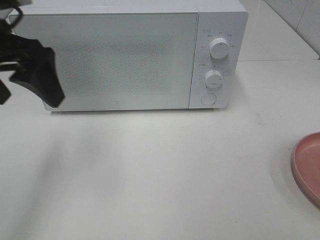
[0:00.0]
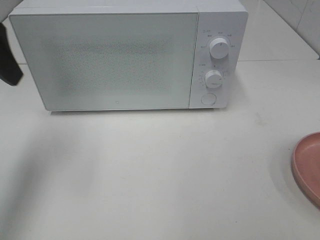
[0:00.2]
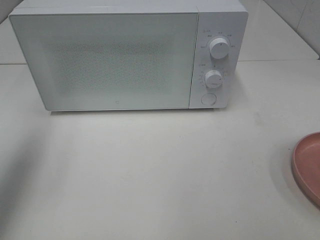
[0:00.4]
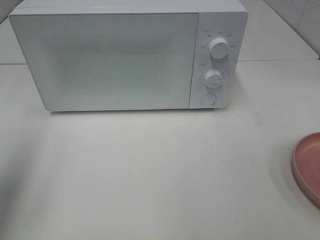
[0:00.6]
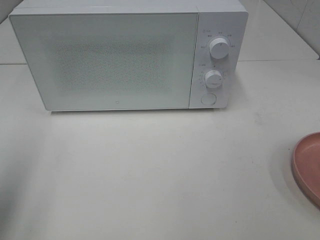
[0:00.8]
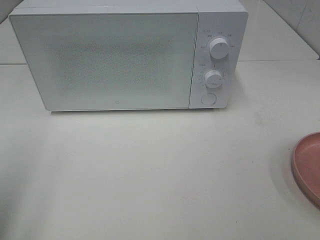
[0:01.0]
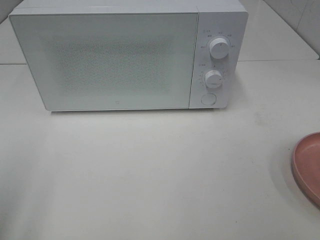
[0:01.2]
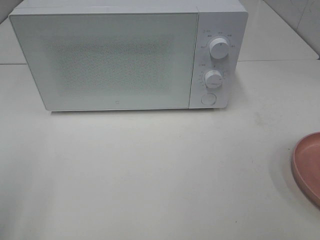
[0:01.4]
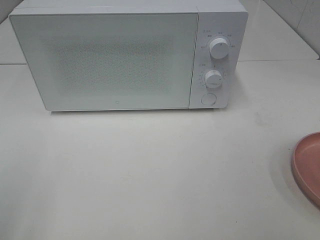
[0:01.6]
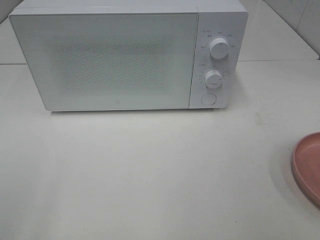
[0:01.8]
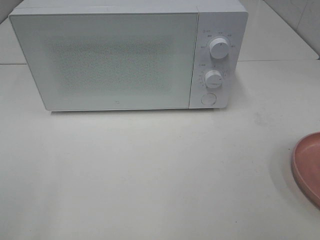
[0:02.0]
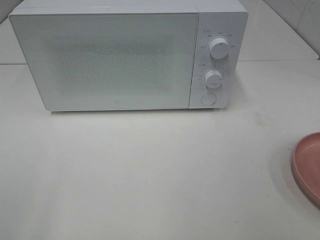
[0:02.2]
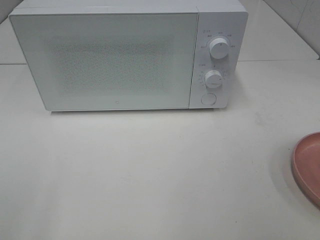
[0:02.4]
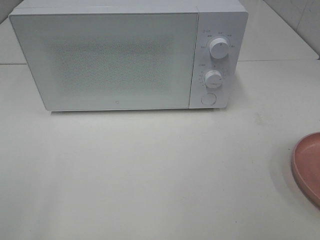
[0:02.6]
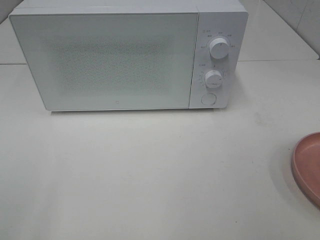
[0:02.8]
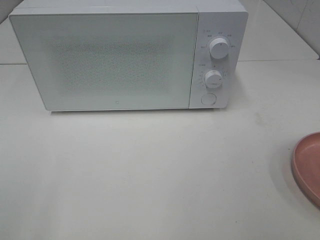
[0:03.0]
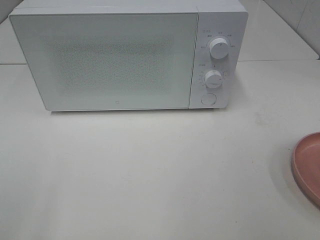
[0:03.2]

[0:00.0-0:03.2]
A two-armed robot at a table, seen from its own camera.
Task of the whole recording: Heat the burger.
0:00.0 to 0:01.6: The left gripper goes roughly 25 cm backward and to the left.

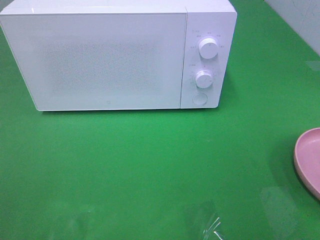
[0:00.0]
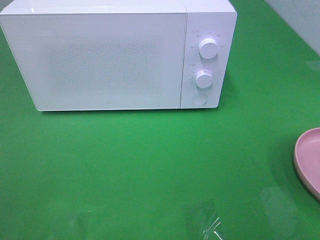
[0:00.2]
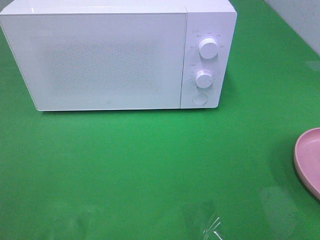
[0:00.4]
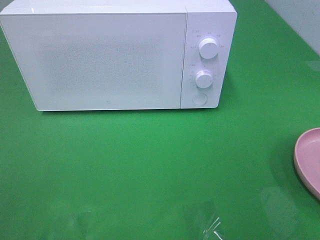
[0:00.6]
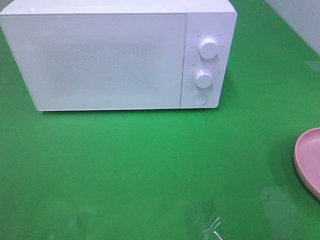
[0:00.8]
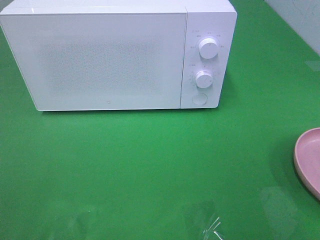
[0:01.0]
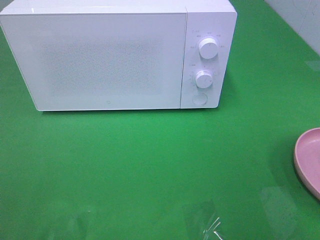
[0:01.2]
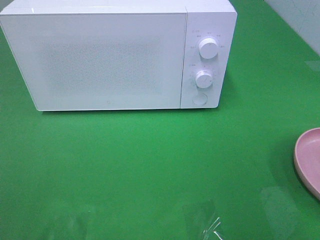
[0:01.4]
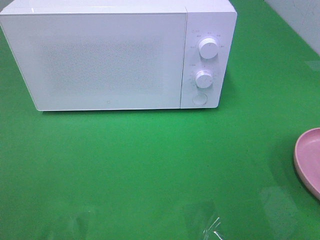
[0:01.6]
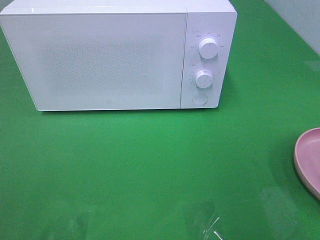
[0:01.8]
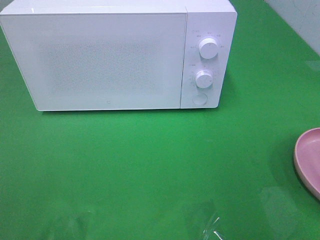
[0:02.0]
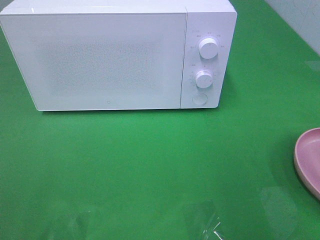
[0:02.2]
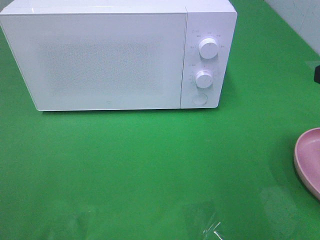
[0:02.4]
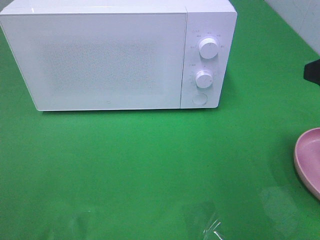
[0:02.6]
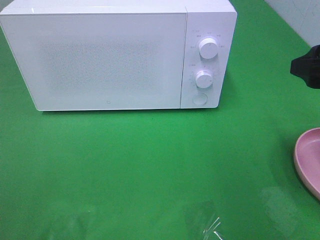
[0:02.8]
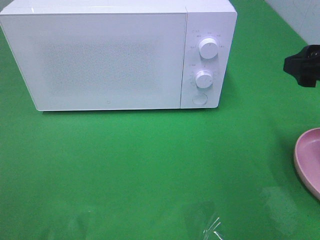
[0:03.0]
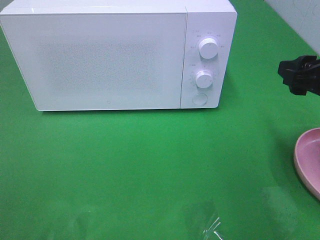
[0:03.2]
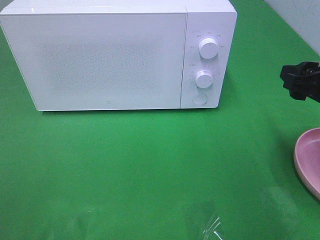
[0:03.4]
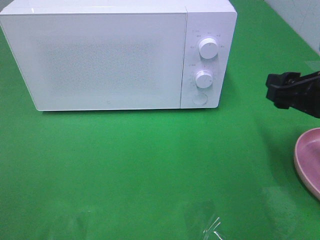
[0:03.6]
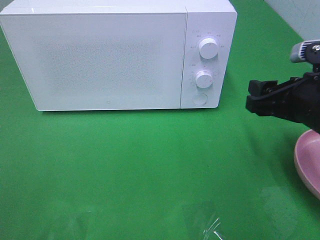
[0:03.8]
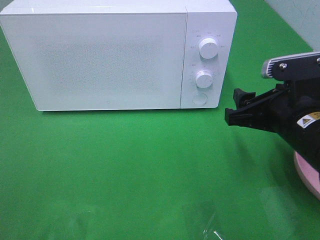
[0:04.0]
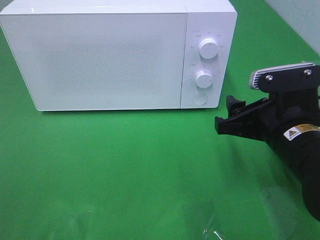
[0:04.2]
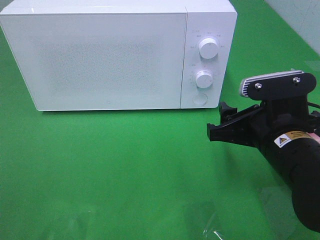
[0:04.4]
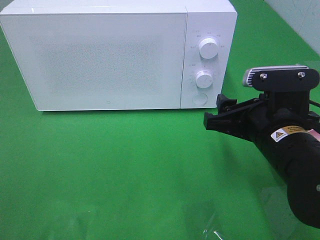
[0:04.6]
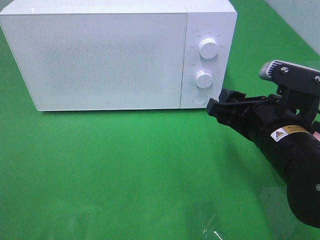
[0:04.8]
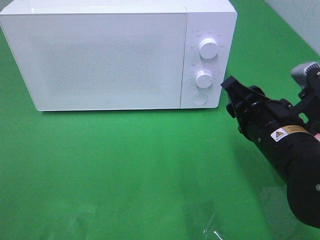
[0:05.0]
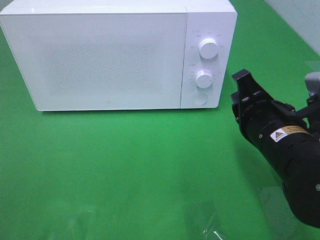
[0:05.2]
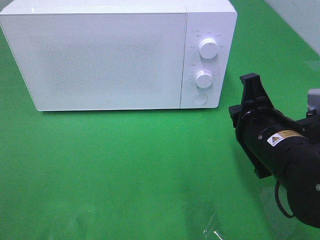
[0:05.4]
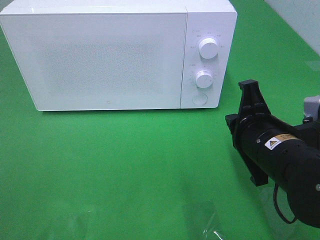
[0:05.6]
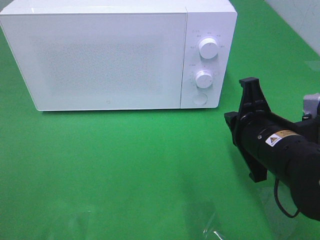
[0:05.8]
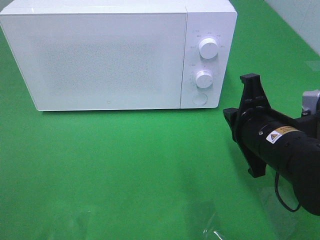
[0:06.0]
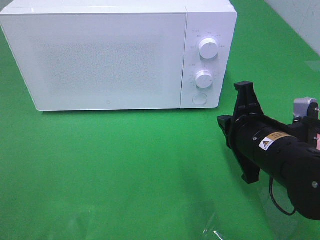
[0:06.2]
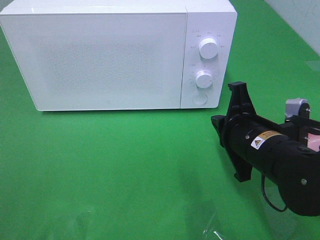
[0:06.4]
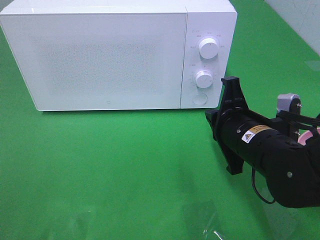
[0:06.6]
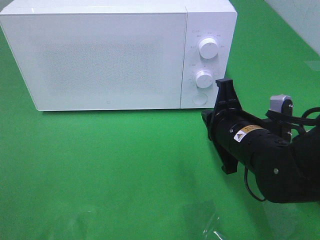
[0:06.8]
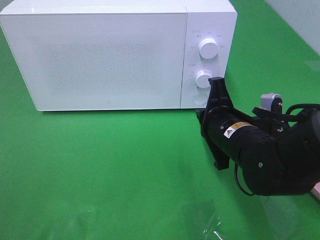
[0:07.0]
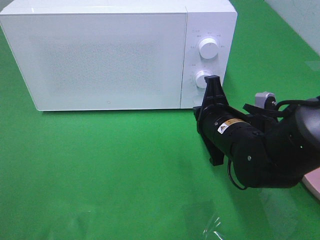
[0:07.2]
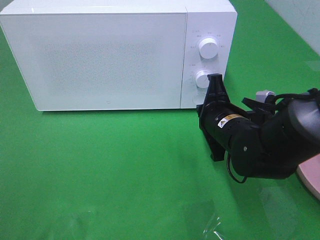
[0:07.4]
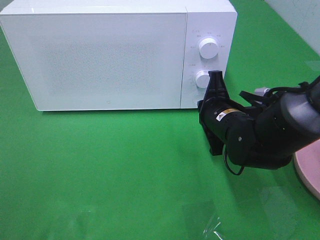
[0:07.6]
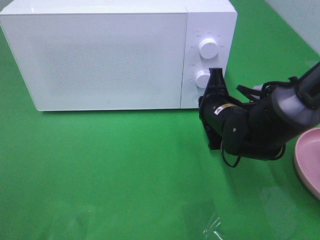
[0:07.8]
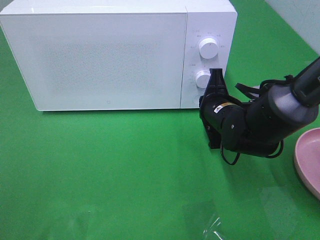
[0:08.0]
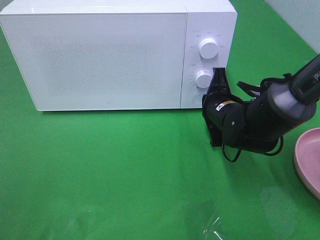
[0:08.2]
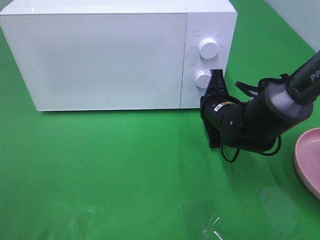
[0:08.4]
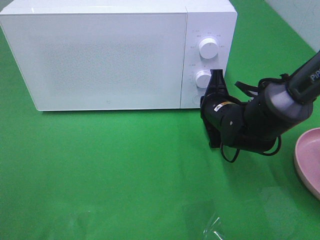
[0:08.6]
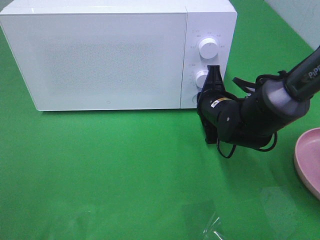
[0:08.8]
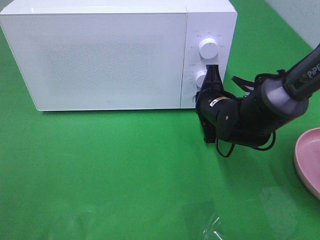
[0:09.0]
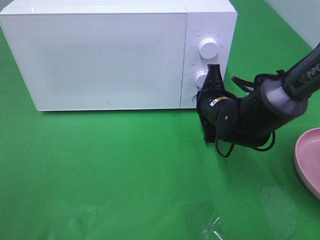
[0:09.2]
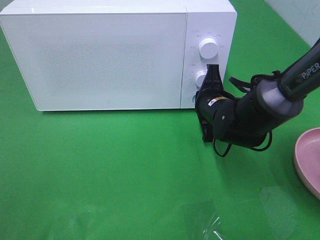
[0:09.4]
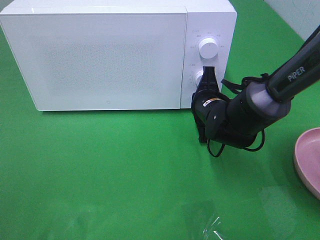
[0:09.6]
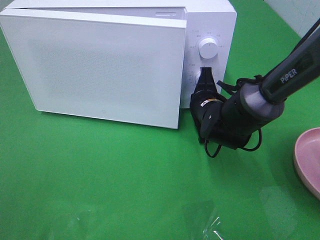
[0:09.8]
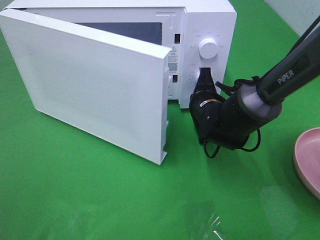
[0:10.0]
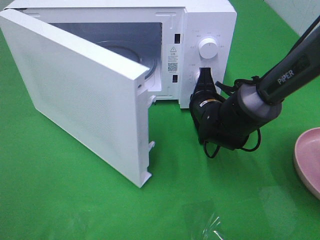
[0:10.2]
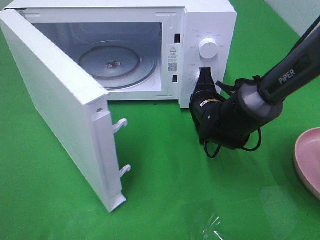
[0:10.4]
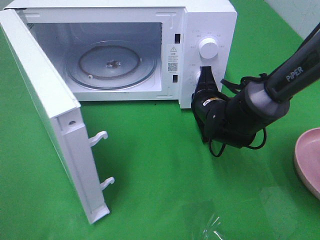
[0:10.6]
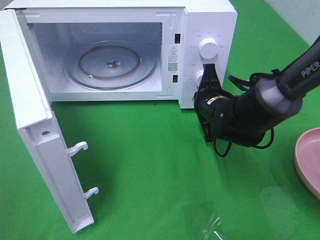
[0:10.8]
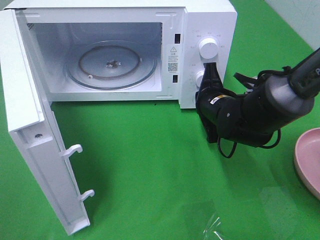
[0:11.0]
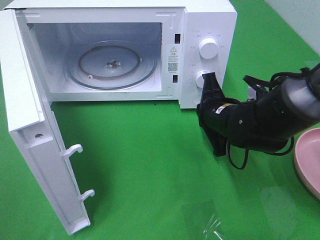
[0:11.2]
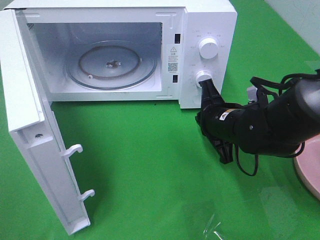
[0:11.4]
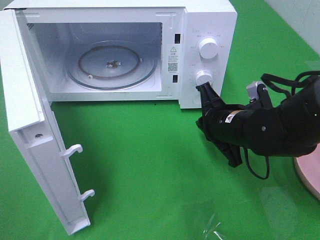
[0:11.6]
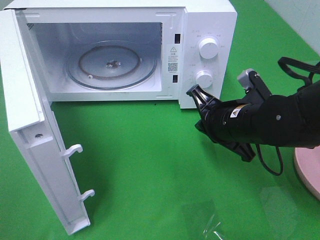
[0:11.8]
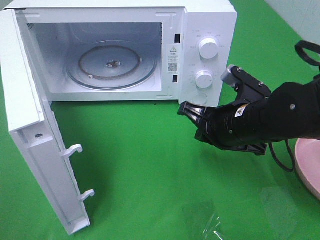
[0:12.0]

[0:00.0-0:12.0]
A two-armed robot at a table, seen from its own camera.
Task of the whole recording: Heat the burger.
Step, 0:00.0 to 0:11.6: Right hand: press the switch.
0:01.6 to 0:03.0: The right gripper goes roughly 15 cm forward and downward.
0:03.0 to 0:04.4: The right gripper heads to the left and downward, covering some 15 cm.
0:04.4 to 0:06.0: The right gripper closes its fingers.
0:06.0 to 0:07.6: The right gripper heads forward, covering approximately 10 cm.
0:07.6 to 0:09.0: The grippers move only a little.
0:10.4 to 0:12.0: The right gripper heads backward and upward, covering some 10 cm.

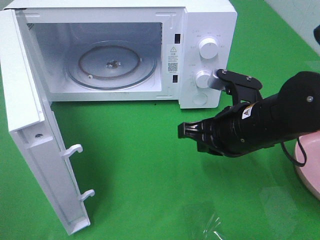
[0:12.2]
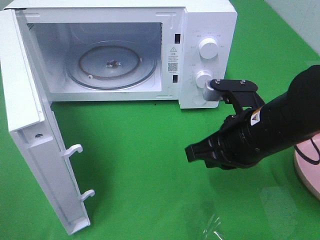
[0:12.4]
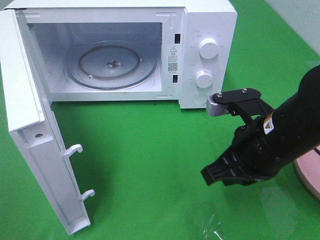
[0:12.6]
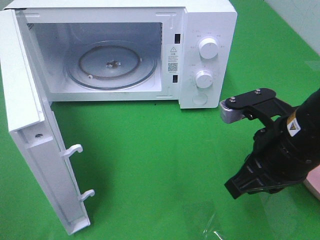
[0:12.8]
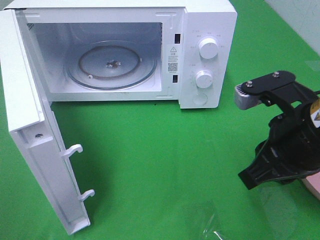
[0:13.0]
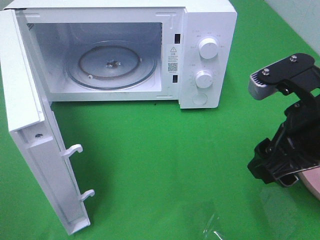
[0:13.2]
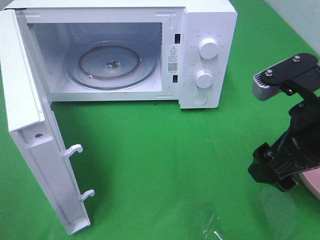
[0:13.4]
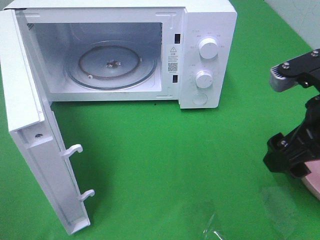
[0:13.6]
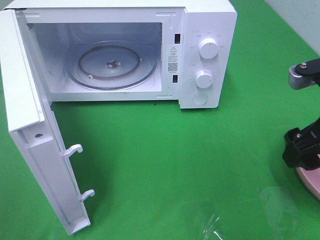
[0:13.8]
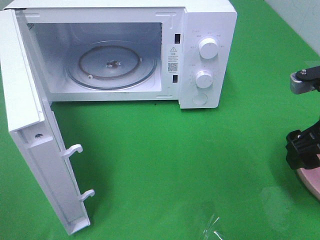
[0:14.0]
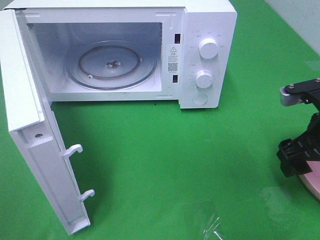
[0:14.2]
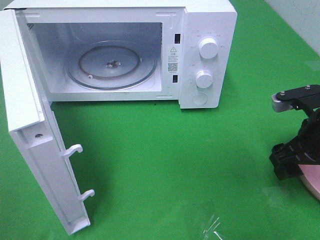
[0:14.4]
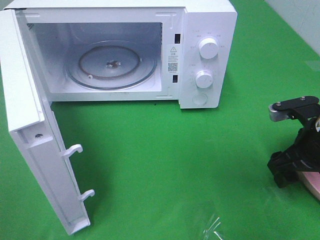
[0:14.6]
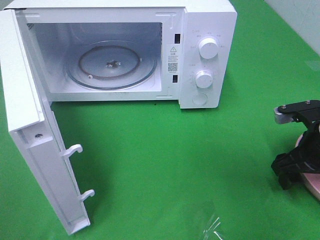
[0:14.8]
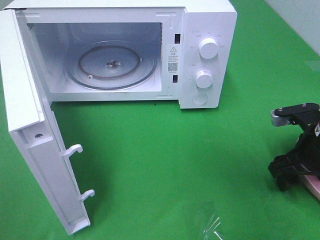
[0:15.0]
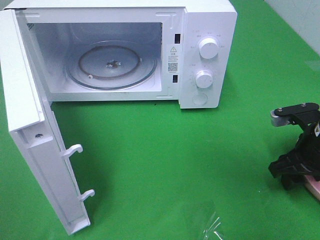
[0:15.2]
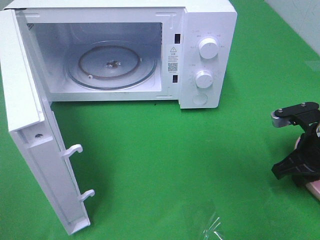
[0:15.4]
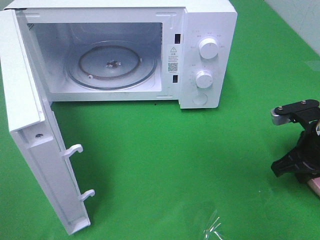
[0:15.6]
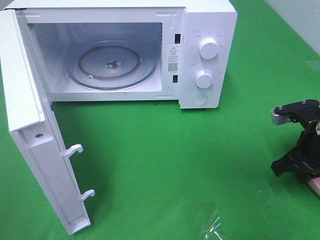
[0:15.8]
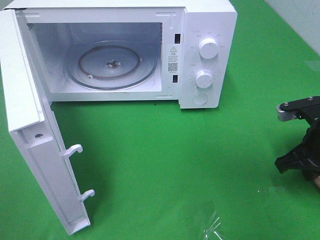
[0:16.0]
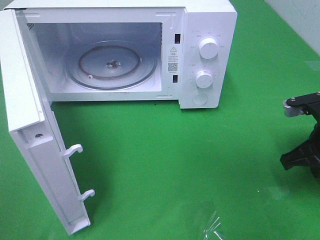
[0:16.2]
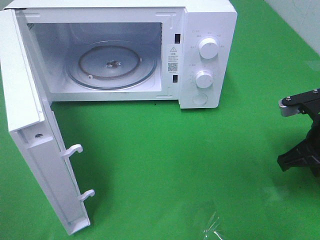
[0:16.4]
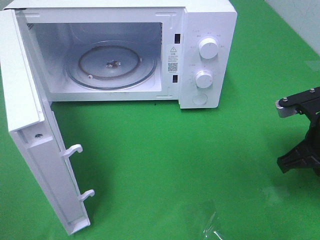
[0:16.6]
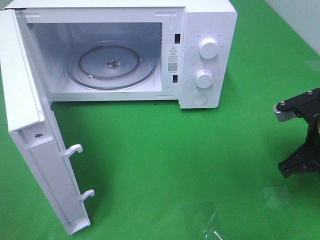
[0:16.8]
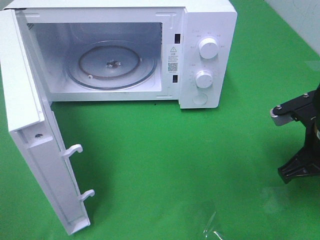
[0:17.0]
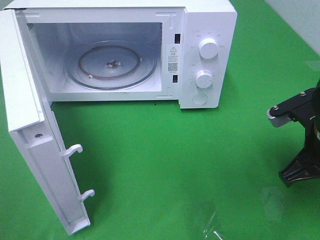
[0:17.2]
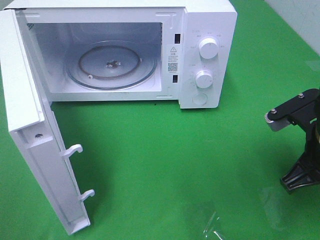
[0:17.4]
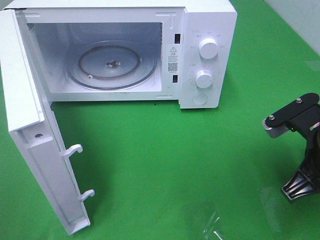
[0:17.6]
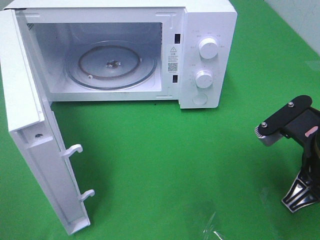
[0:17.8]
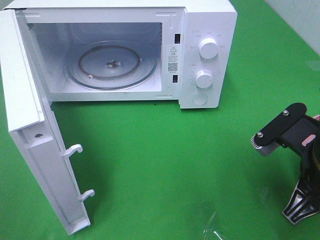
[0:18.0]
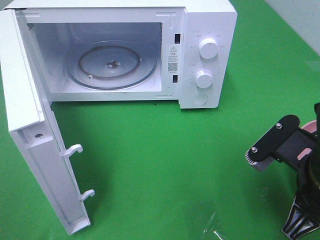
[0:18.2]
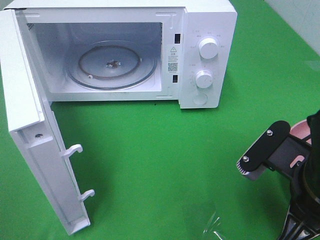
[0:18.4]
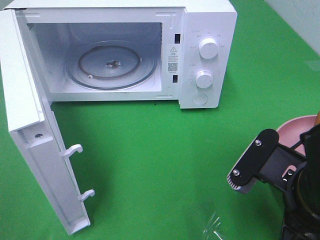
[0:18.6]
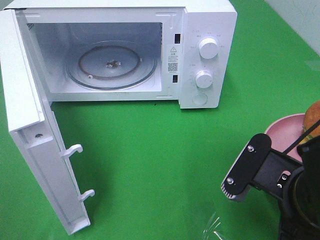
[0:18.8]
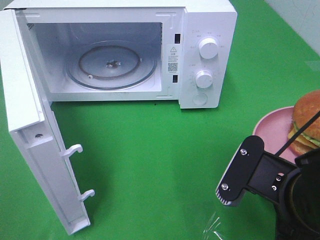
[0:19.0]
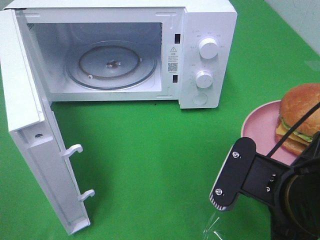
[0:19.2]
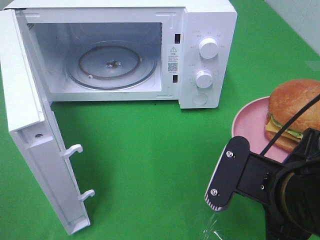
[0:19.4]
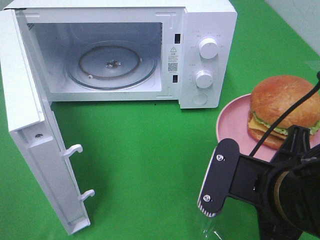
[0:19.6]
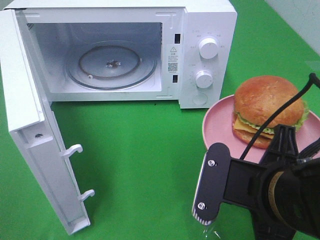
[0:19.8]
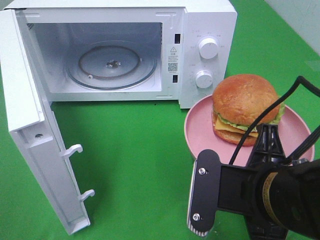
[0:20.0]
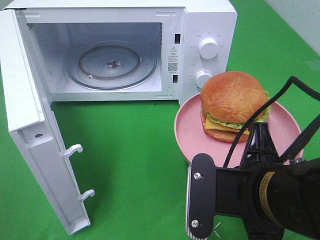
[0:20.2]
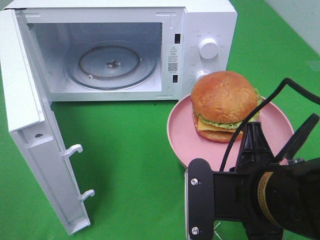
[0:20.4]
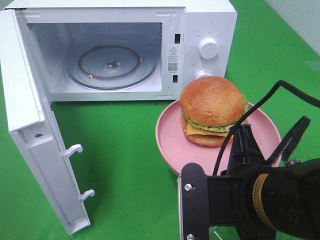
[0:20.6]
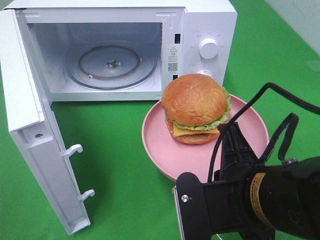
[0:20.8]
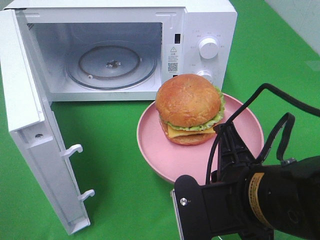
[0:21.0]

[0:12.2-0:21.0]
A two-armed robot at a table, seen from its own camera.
Task of the whole recording: Heat the burger.
Step, 0:12.2 to 0:15.6: Right hand: grab the plate with the hamburger.
0:12.2 to 0:13.6: The right gripper goes about 10 cm to the right and upward, and opens its fingers.
0:13.6 to 0:15.2: The right gripper goes about 15 cm downward, forward and to the right.
0:15.2 to 0:16.6: The right gripper closes its fingers.
0:16.6 to 0:18.0: The right gripper goes some 10 cm backward and to the left.
0:18.0 to 0:19.6: The right gripper travels to the left by roughly 5 cm.
